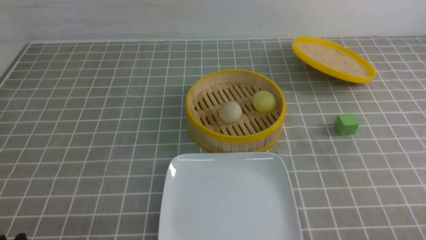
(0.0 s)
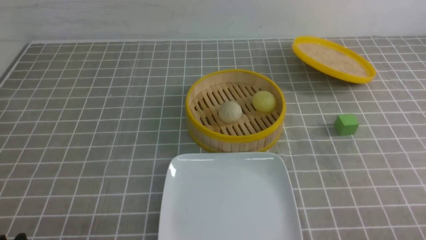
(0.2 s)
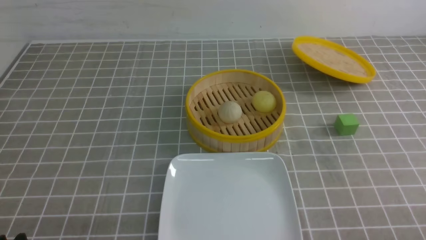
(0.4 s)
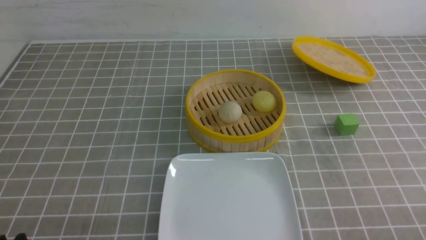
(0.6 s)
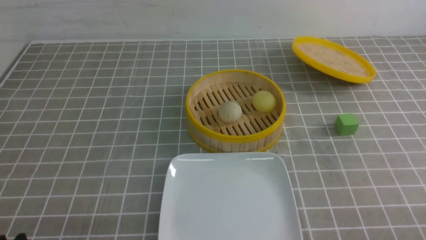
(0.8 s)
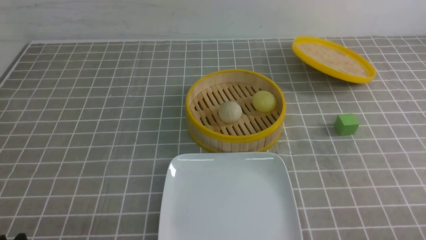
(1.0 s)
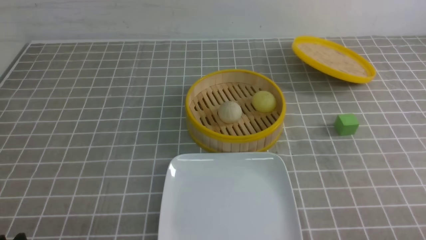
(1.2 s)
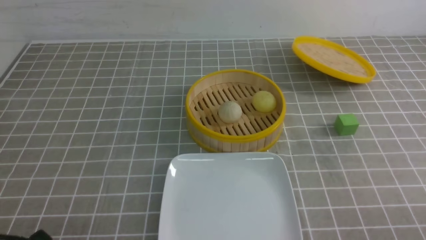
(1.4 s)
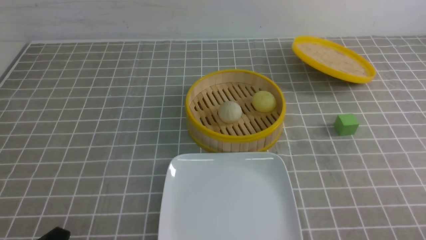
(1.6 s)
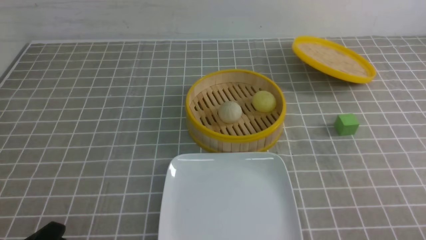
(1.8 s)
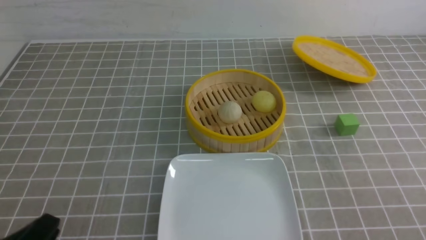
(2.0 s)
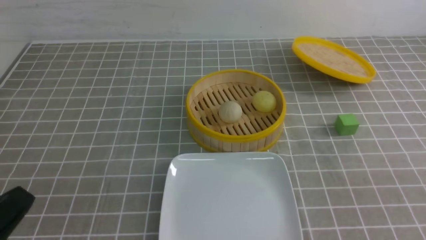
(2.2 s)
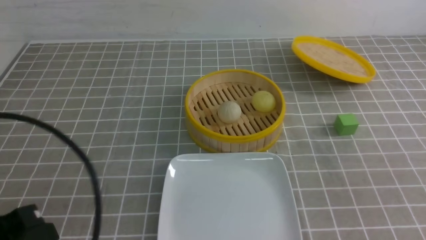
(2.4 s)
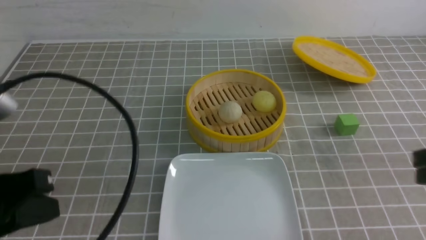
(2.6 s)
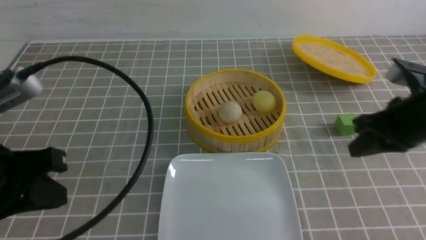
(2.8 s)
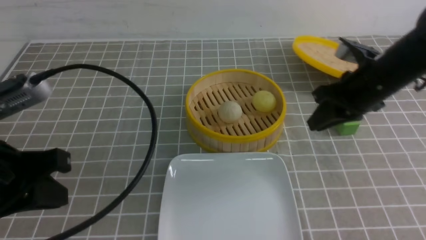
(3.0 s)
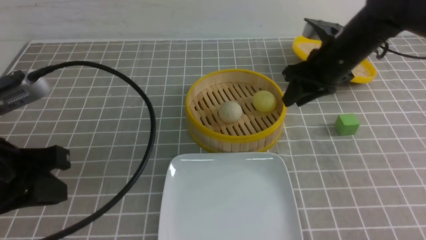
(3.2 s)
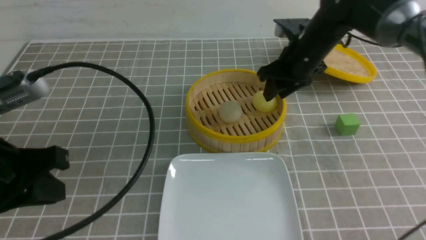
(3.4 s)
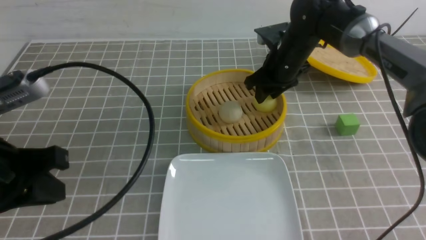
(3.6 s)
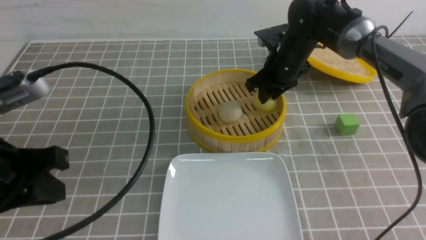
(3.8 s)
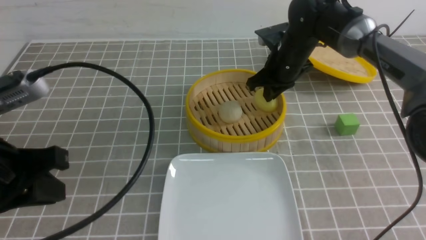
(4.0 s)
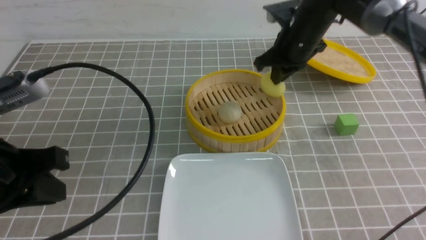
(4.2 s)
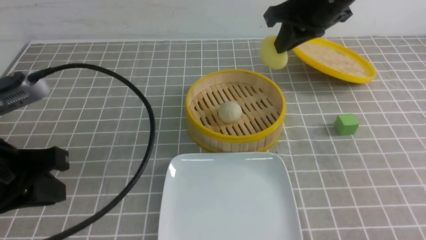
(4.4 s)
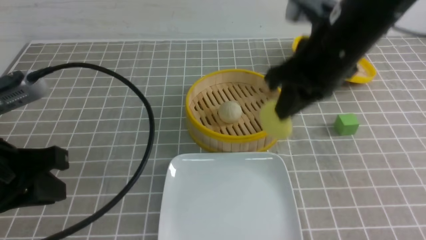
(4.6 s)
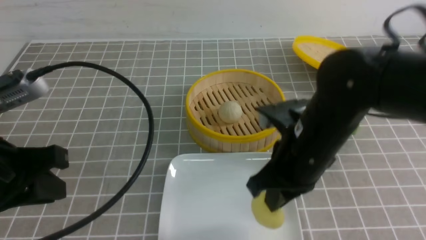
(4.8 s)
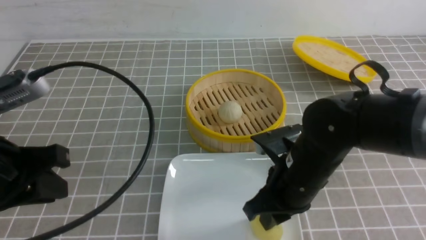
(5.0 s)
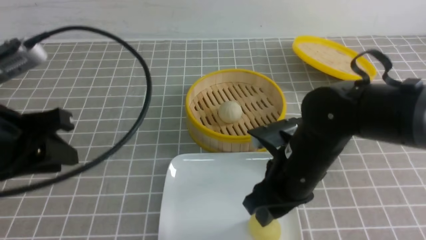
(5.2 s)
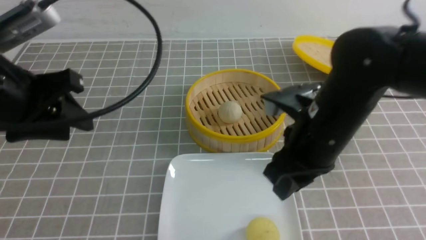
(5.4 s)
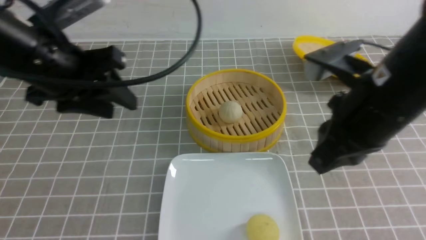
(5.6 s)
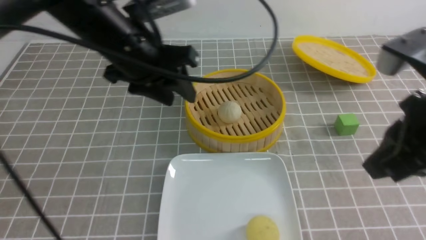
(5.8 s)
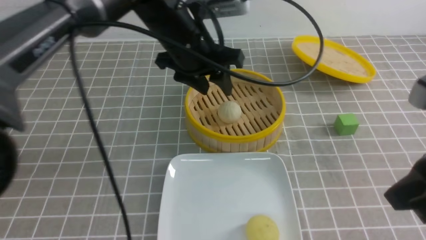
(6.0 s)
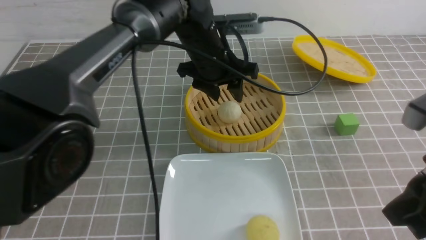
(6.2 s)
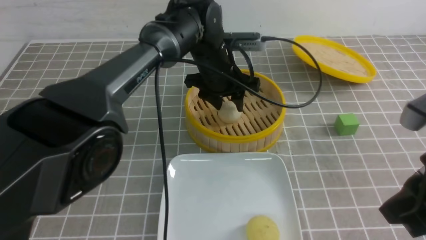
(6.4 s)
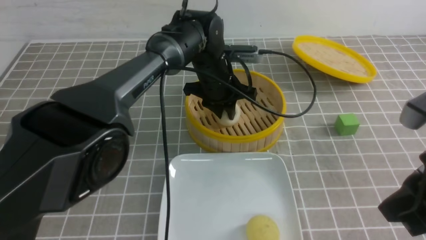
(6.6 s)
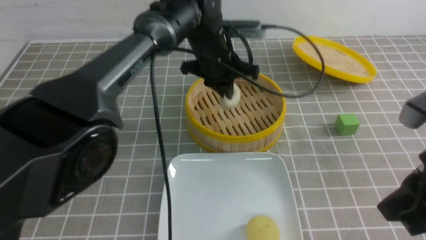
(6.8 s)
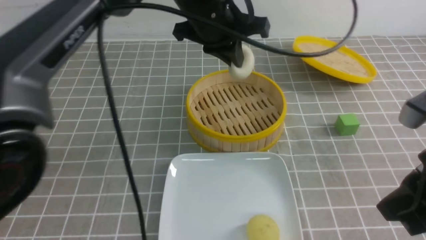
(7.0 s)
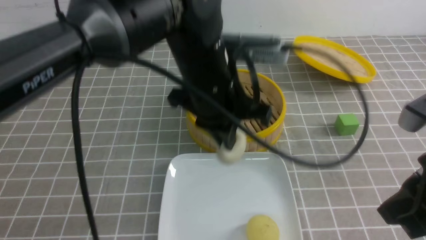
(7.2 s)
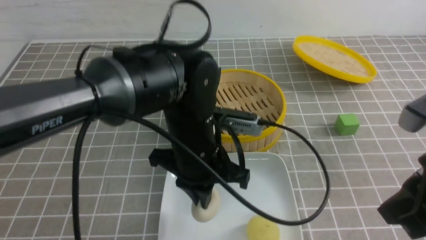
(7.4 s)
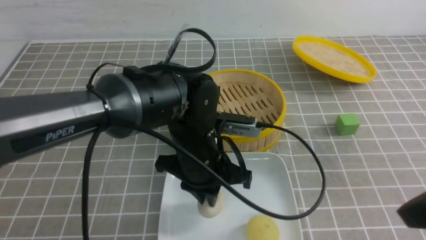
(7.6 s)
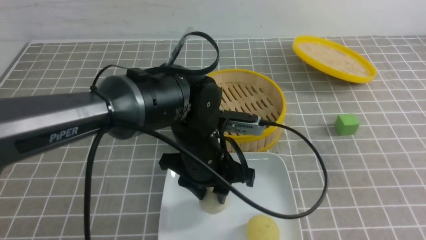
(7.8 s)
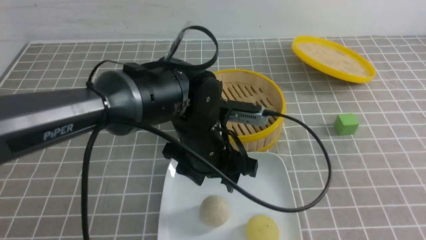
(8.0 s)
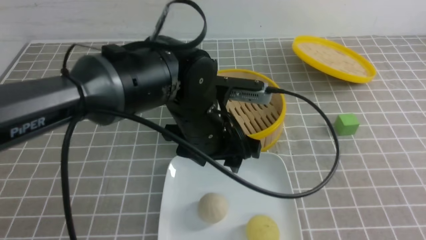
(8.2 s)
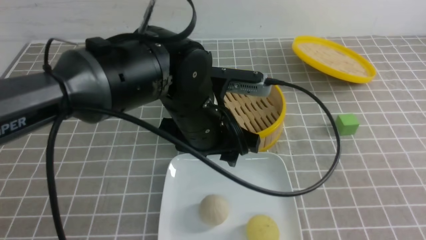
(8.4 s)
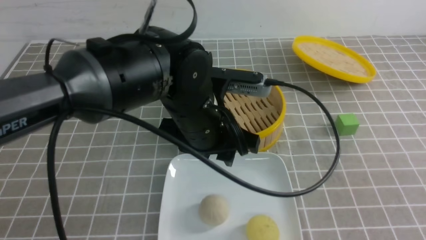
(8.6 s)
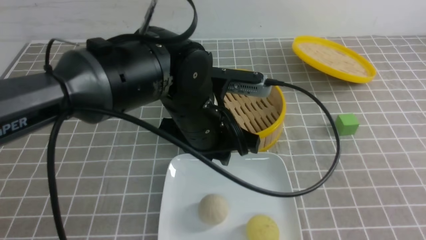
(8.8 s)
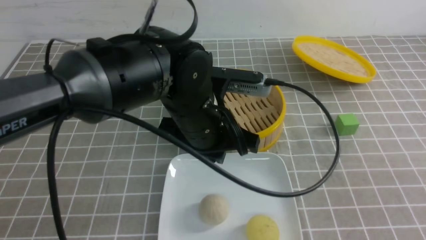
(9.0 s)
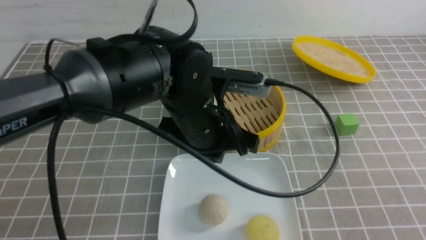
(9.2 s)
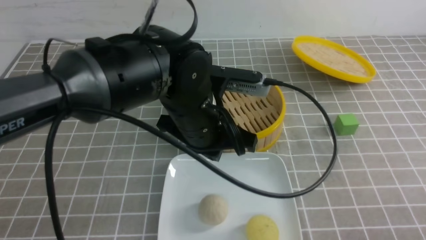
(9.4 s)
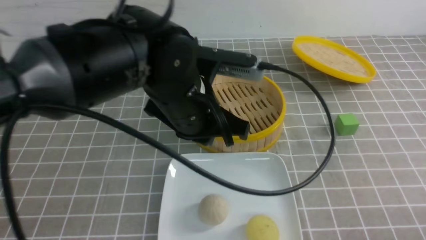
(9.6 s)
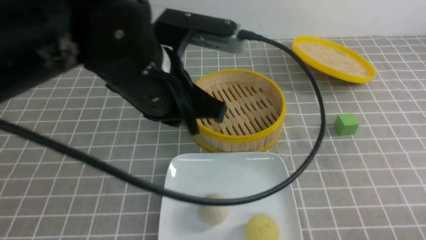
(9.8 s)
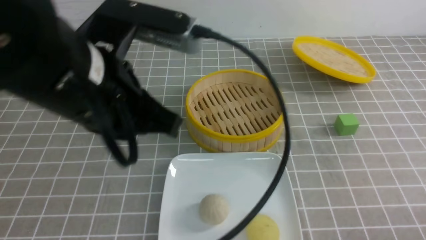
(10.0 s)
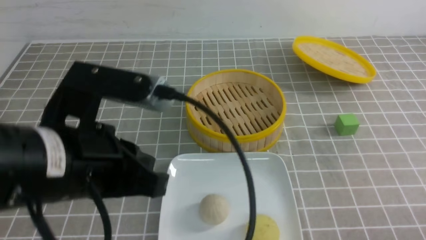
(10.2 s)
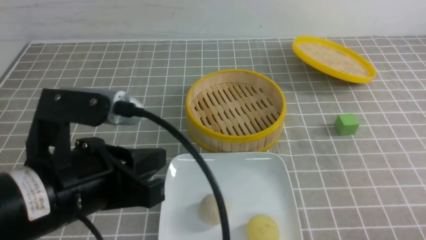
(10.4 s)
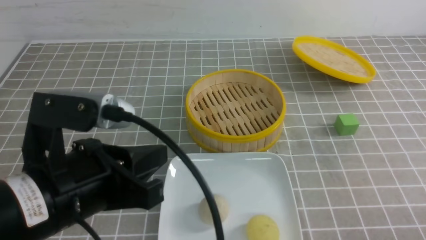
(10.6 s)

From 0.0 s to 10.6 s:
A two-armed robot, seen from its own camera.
Step, from 0.0 s to 4.0 s: use the right arm to grab the steamed stuffed bun that is closest to it.
Step, from 4.2 s to 5.2 s: use the right arm to put the steamed stuffed bun into the plate.
Step, from 5.4 s to 6.6 s: use the left arm to grab the steamed stuffed bun that is closest to it.
Step, from 6.8 s to 7.8 s: use the left arm to put the steamed stuffed bun into the plate.
From 1.6 s to 3.0 s: The left gripper is displaced upward and forward by roughly 20 cm, and closes its fingers; the right gripper heads forward, covering some 30 cm, and closes, then reopens.
From 3.0 s to 4.6 s: The right gripper travels to the left by roughly 10 cm, reaches about 10 cm forward, then returns, and closes its fingers.
From 4.6 s to 6.0 s: The left gripper travels forward and to the right by some 30 cm, and opens, while the right gripper travels backward and to the right by about 20 cm, and opens, then closes once more.
From 6.0 s to 7.6 s: The left gripper travels backward and downward by about 15 cm, and closes.
From 7.6 s to 9.0 s: The right gripper goes approximately 10 cm downward, backward and to the right. Meanwhile the left gripper shifts some 5 cm upward, and opens, then closes once more.
From 9.0 s to 10.6 s: The right gripper moves downward, approximately 10 cm; the left gripper travels backward and to the left by some 20 cm.

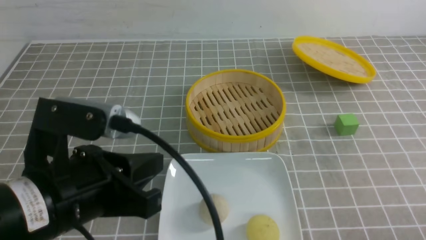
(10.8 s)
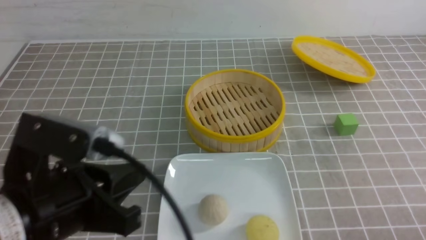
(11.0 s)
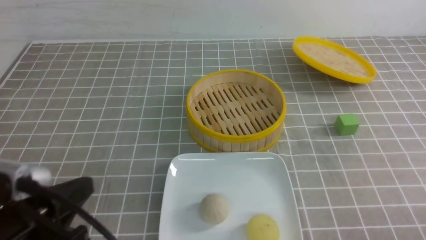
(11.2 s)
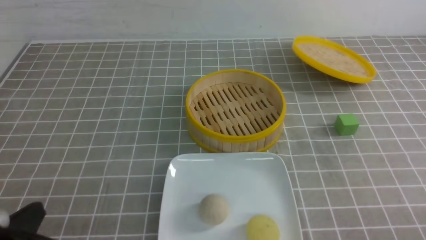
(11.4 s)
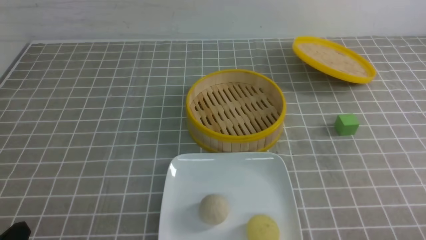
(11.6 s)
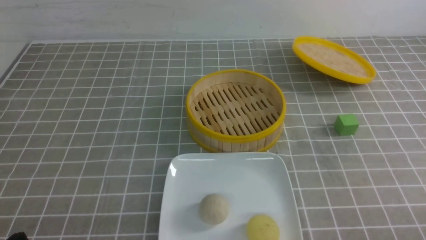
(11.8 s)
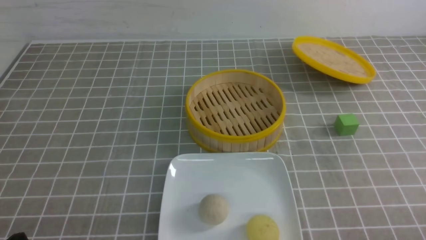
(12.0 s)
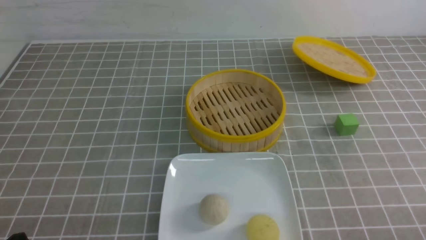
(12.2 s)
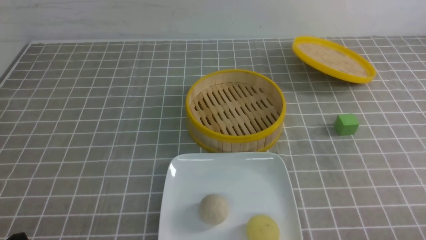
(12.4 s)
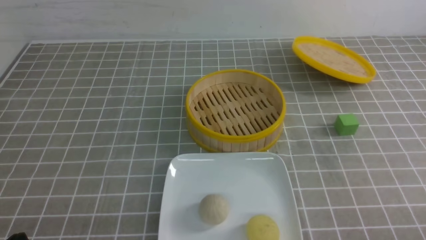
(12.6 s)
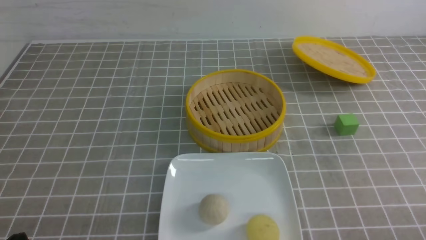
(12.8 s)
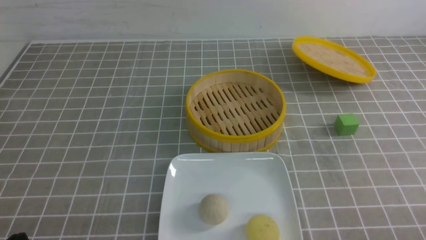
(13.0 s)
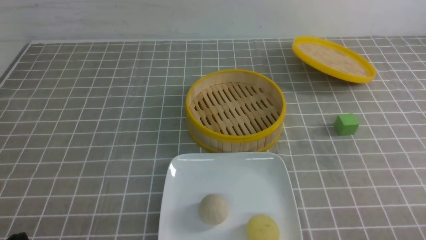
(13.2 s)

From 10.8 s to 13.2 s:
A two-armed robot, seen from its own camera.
From 10.8 s to 12.0 s: The left gripper heads downward, to the left and backward, covering about 20 cm.
From 12.0 s to 13.2 s: The two grippers keep their place.

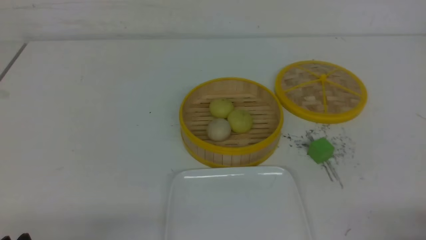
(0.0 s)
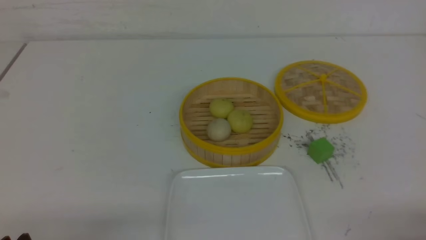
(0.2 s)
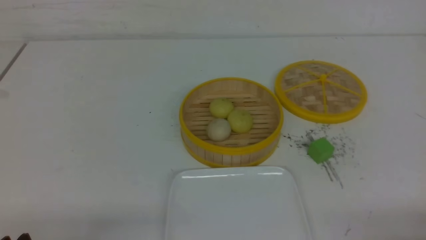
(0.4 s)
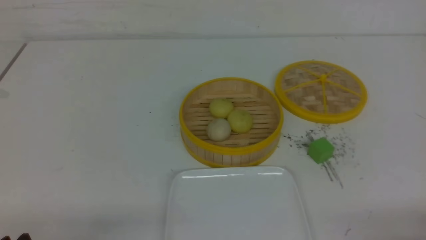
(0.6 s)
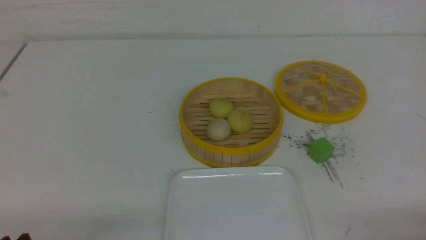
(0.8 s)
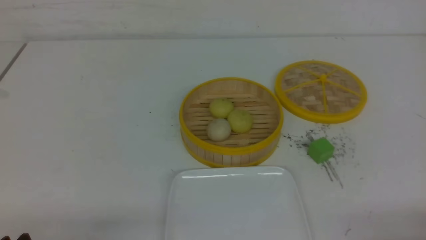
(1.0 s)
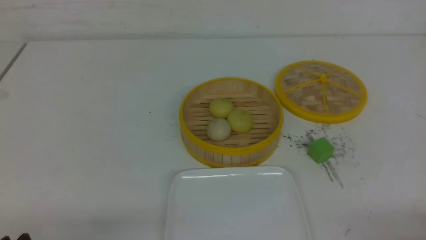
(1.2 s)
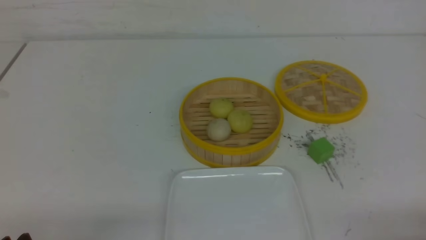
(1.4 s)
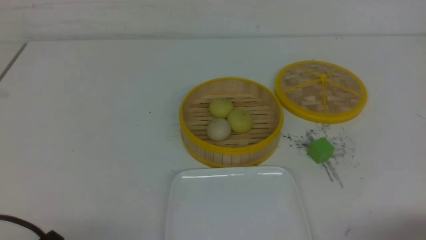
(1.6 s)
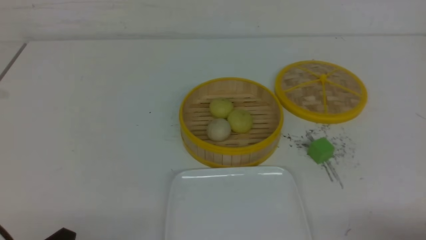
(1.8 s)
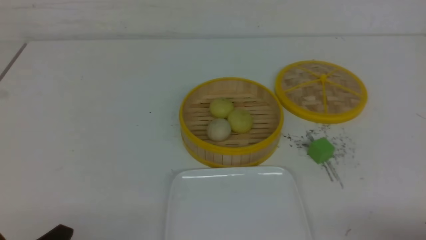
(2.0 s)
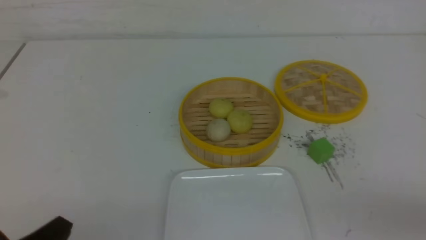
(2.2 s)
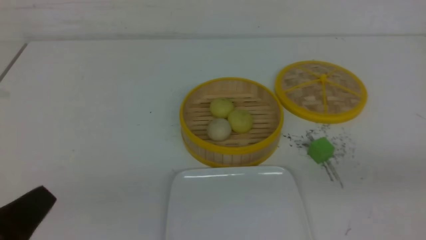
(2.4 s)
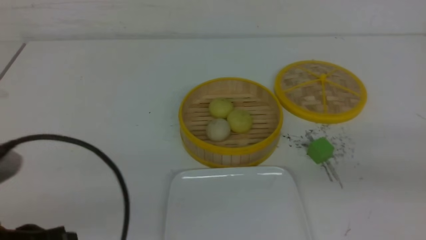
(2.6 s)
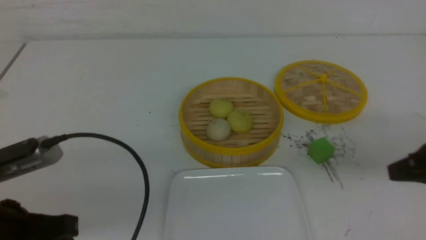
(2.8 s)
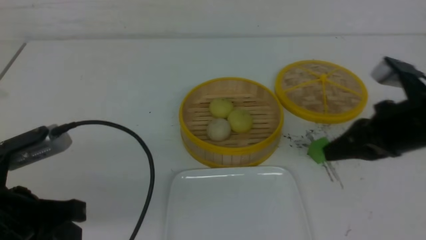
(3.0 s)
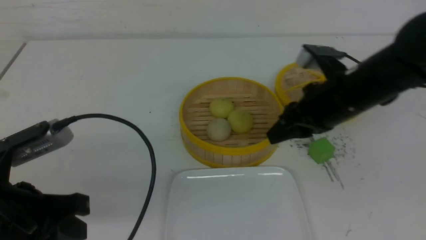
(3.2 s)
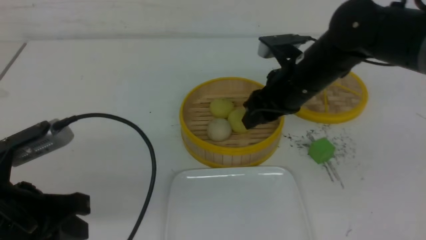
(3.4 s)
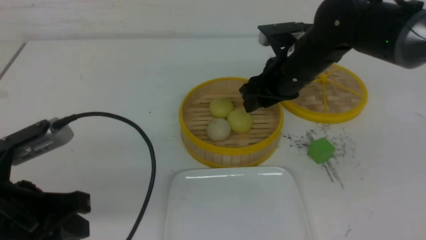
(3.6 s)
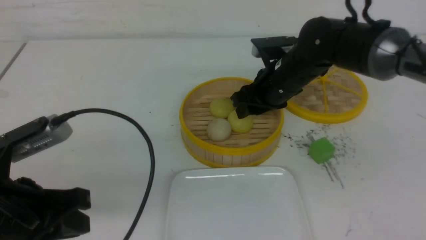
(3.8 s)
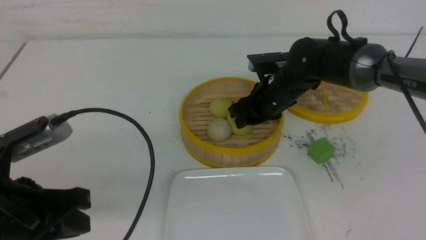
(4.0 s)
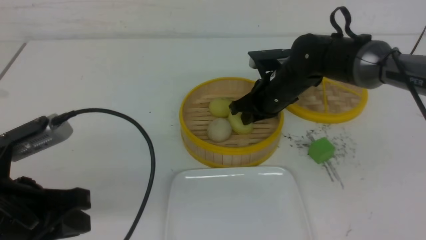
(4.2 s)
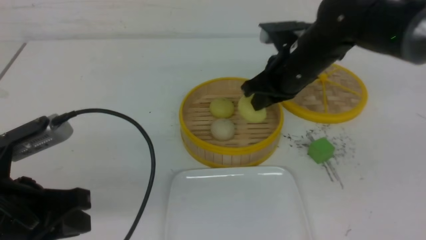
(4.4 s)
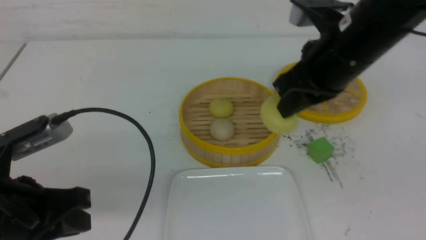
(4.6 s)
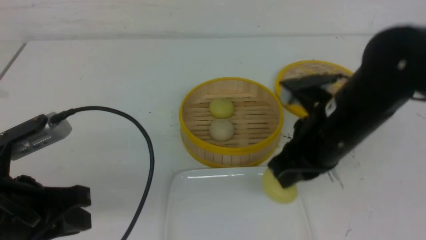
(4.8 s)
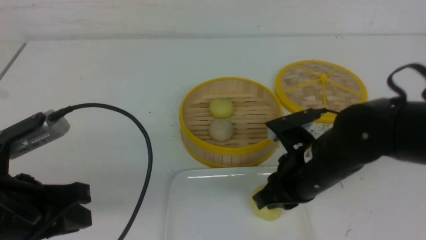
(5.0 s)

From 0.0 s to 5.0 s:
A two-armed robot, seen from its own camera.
Step, from 0.0 s to 4.2 s: use the right arm to grab the steamed stuffed bun that is closest to it.
From 1.6 s to 3.4 s: The right gripper heads forward and to the left, covering roughly 35 cm, and closes and opens again, while the left gripper is displaced upward and forward by some 15 cm, and closes.
From 3.4 s to 5.0 s: The right gripper goes about 10 cm backward and downward, and closes its fingers.
